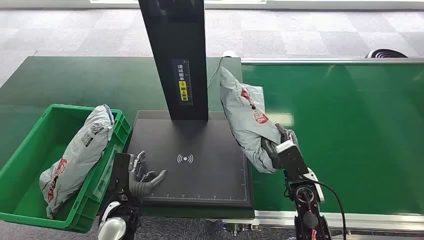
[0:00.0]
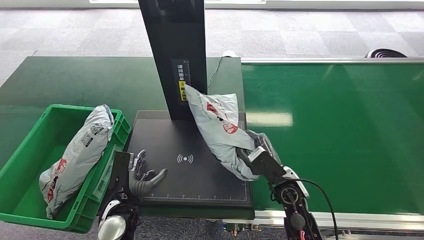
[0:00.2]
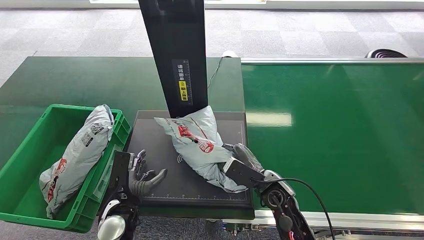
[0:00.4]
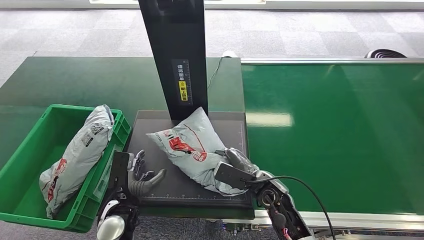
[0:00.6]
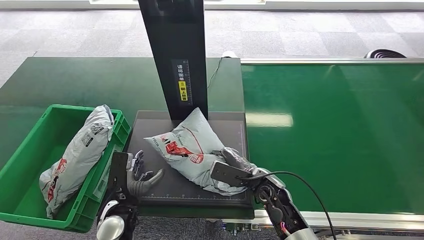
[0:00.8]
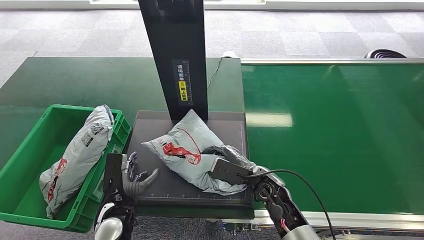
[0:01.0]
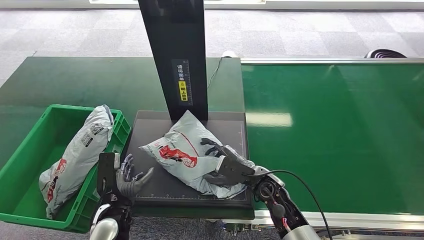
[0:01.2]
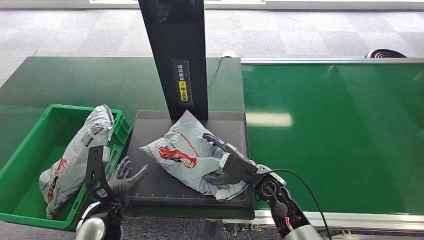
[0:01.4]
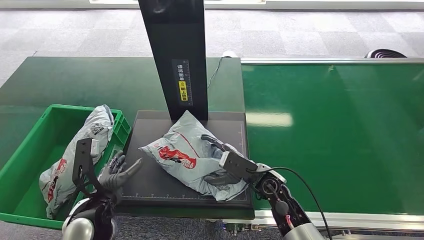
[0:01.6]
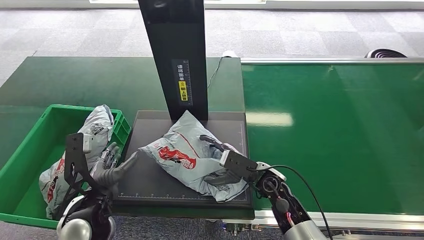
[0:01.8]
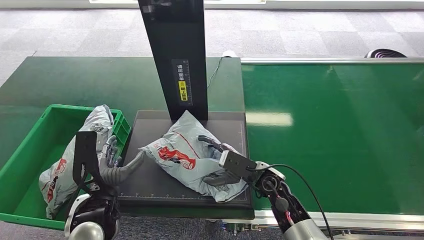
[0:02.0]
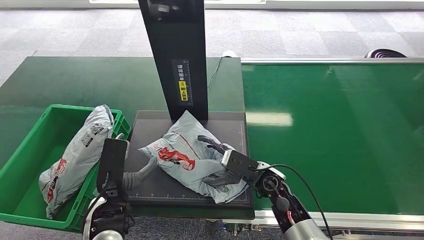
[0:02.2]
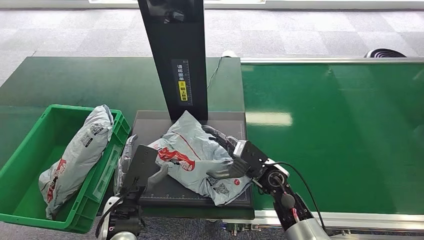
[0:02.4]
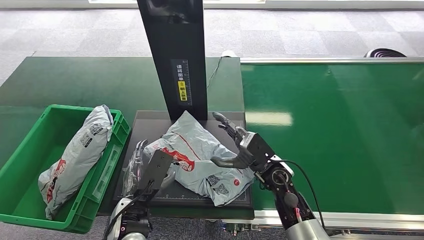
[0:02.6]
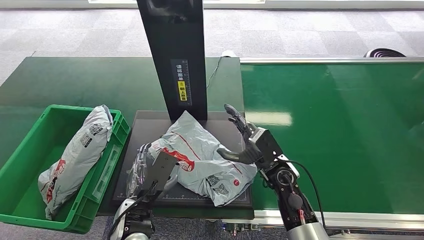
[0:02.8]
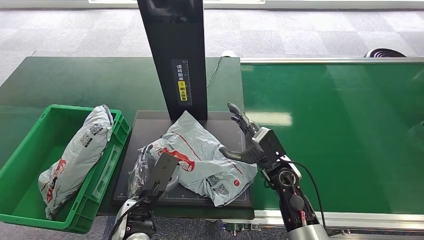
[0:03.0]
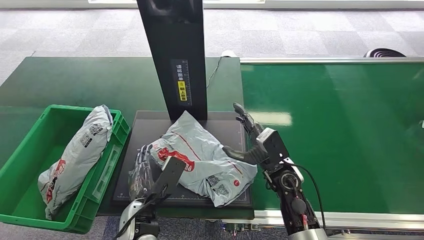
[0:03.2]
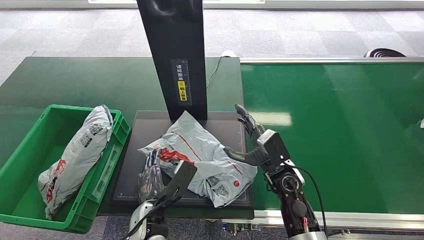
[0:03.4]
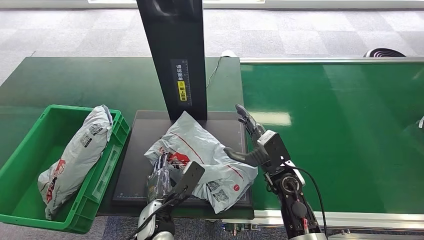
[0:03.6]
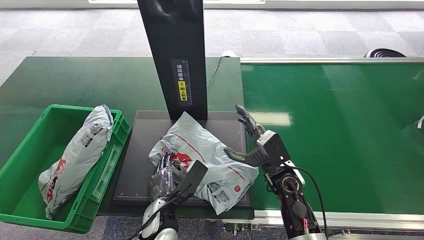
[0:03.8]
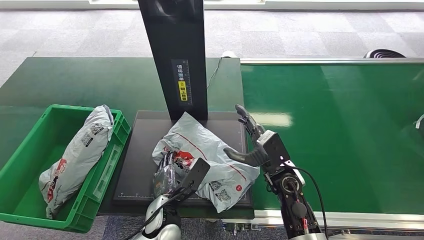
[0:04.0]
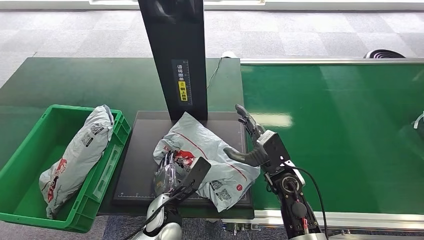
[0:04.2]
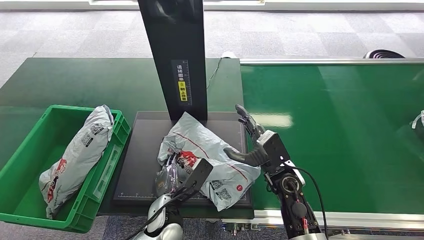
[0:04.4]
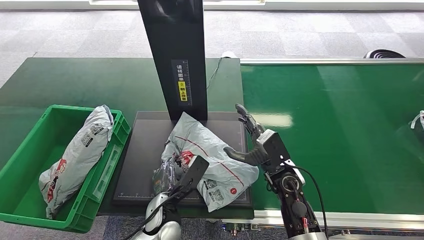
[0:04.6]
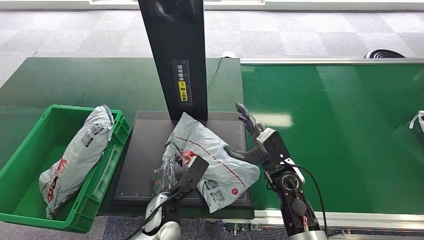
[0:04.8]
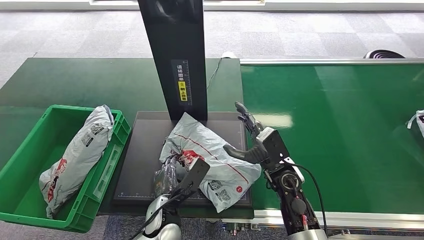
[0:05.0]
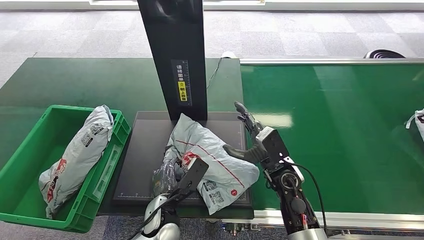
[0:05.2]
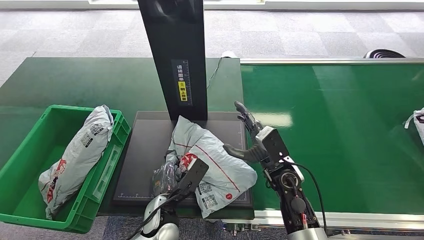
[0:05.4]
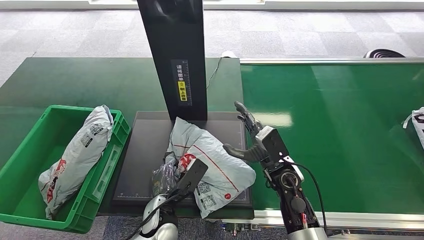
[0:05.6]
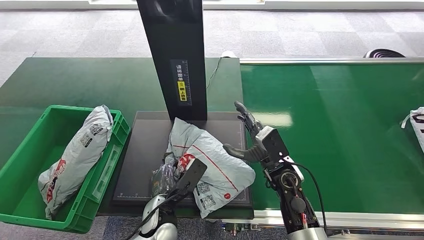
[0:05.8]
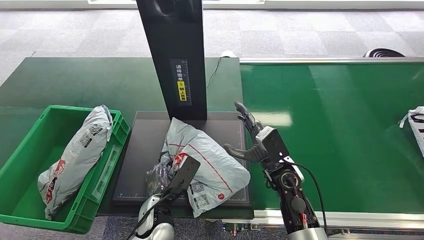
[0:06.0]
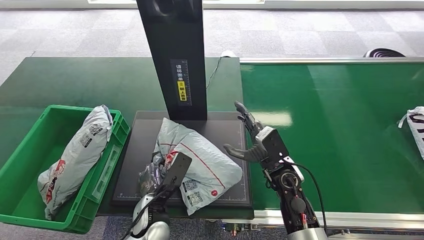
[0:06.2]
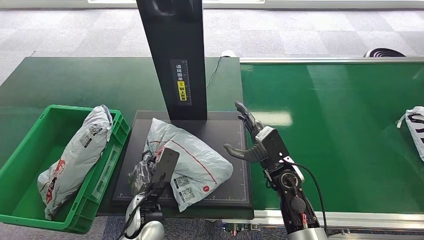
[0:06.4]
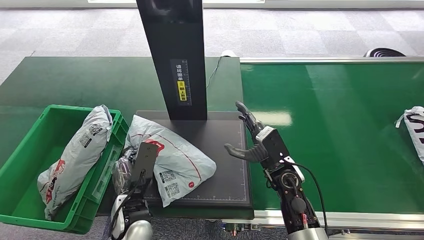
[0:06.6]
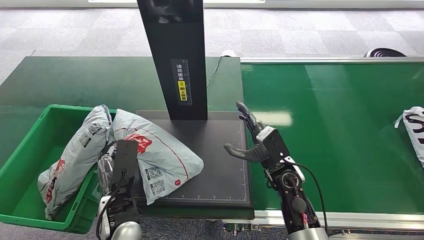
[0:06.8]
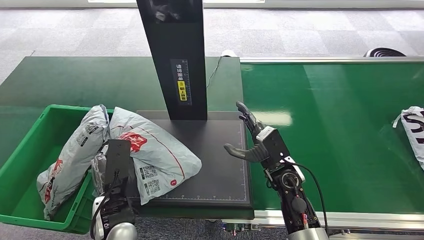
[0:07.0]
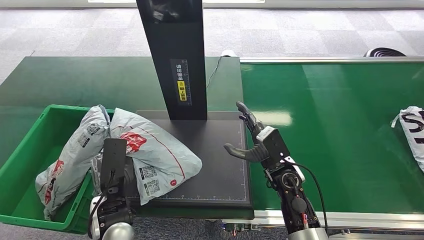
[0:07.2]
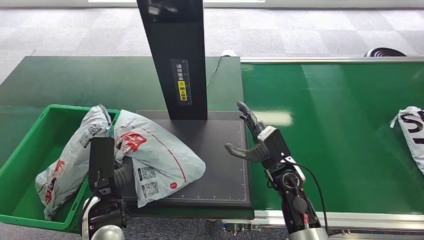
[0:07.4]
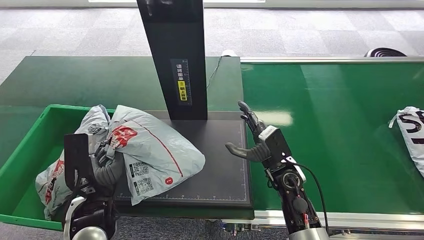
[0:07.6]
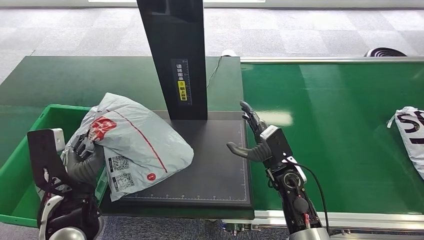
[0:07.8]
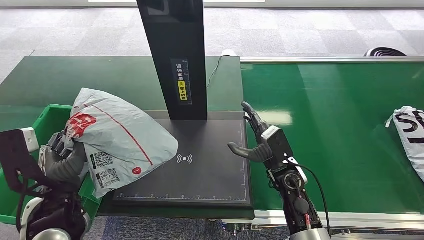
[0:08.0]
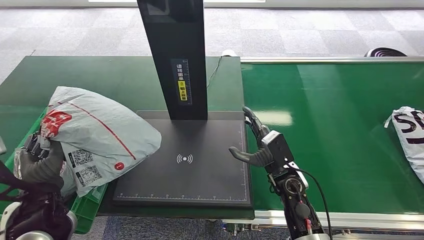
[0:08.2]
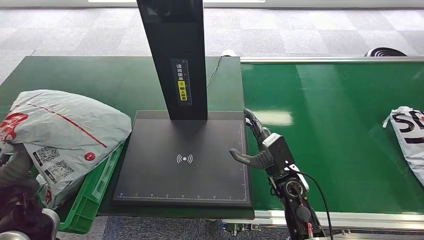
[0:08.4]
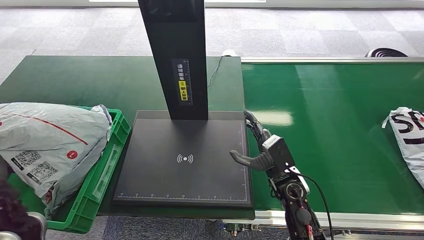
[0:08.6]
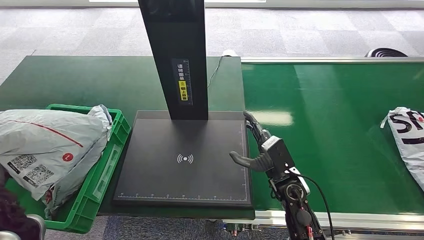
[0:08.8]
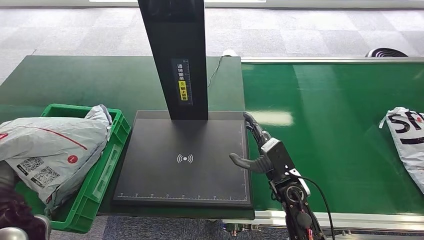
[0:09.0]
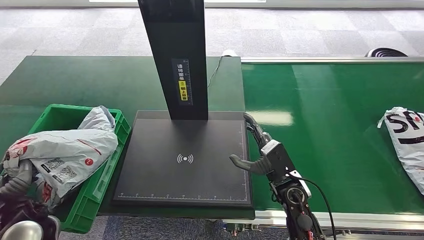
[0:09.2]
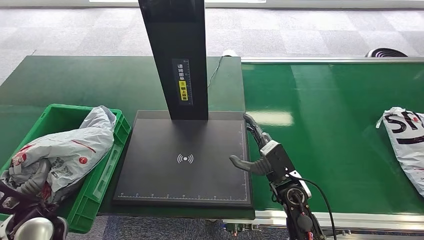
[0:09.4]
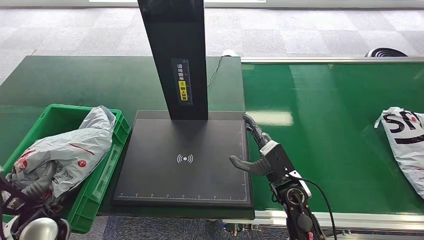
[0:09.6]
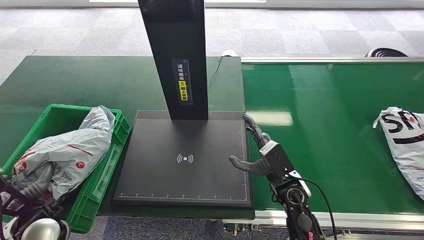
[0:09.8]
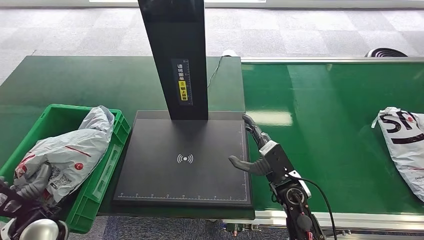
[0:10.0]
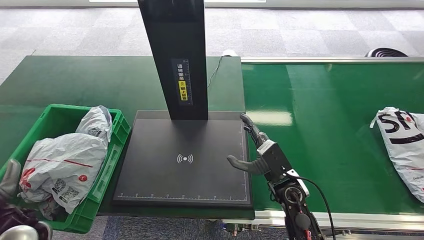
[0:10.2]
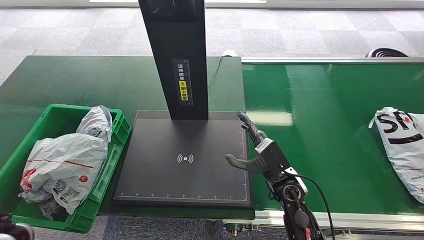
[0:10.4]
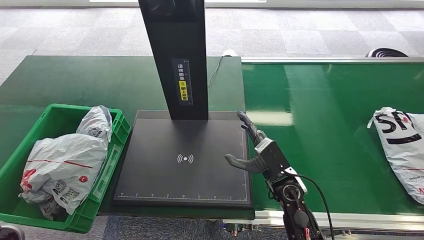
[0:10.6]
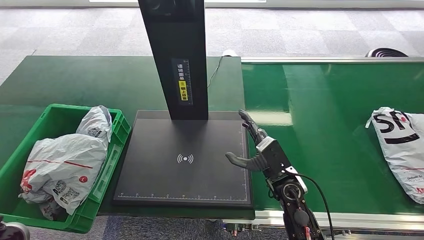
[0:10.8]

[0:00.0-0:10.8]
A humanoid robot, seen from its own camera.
Step, 0:02.0 to 0:02.4: Place the package onto the inbound machine.
0:01.6 to 0:03.0: The left hand is displaced to the right by roughly 10 cm.
0:03.0 to 0:04.6: The left hand travels to the right and downward by approximately 10 cm.
0:04.6 to 0:06.2: The hands move only a little.
0:09.2 to 0:10.8: The left hand heads upward, covering some 5 cm.
